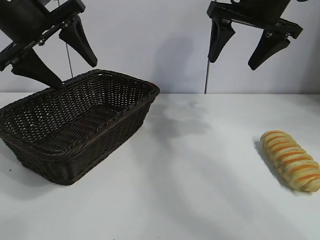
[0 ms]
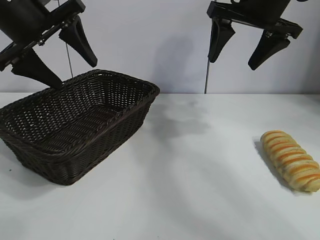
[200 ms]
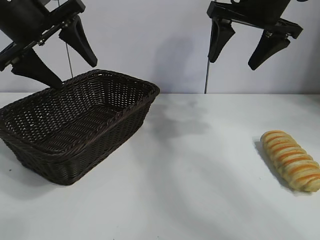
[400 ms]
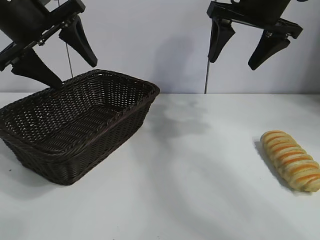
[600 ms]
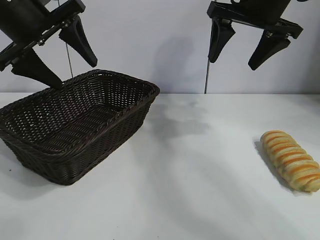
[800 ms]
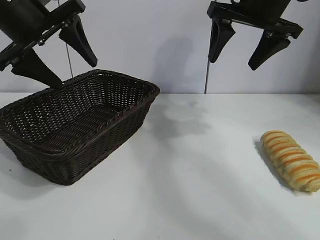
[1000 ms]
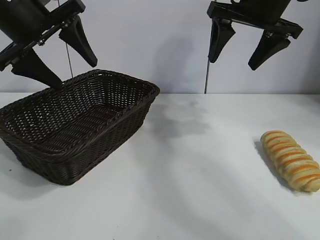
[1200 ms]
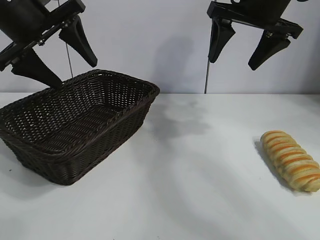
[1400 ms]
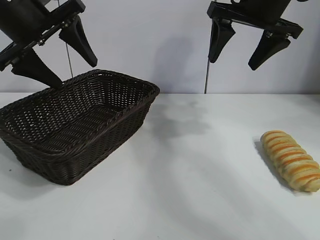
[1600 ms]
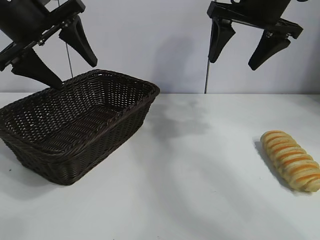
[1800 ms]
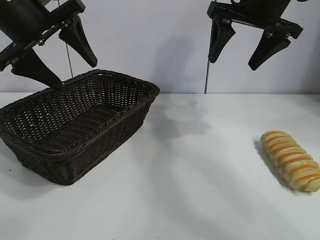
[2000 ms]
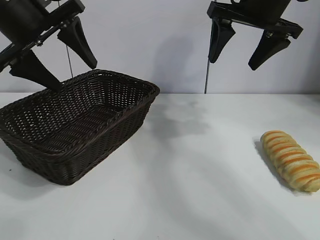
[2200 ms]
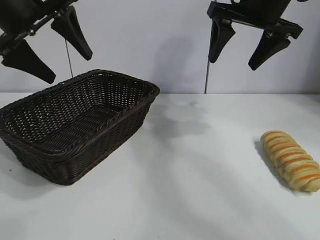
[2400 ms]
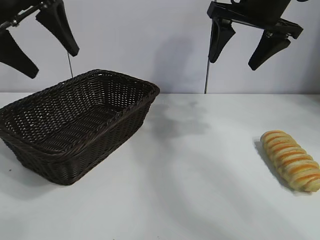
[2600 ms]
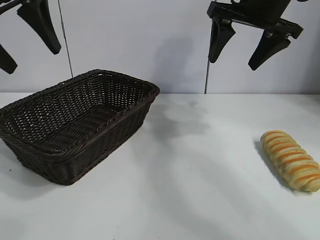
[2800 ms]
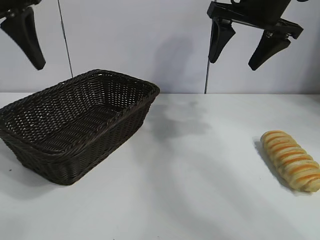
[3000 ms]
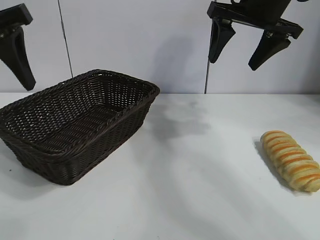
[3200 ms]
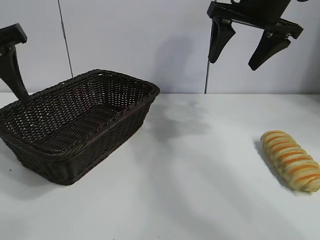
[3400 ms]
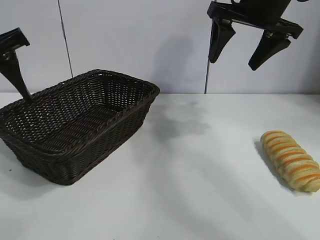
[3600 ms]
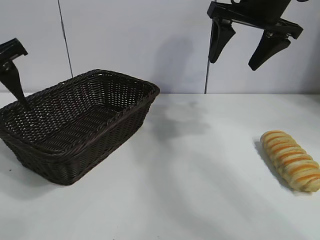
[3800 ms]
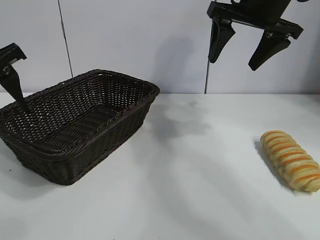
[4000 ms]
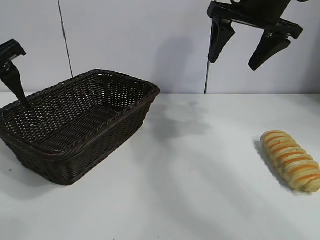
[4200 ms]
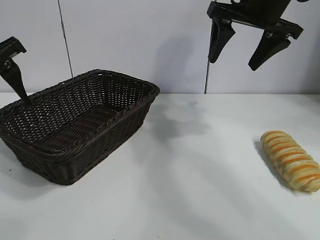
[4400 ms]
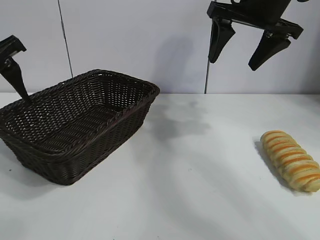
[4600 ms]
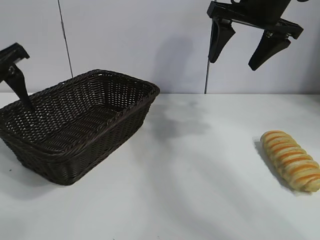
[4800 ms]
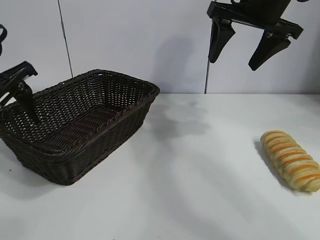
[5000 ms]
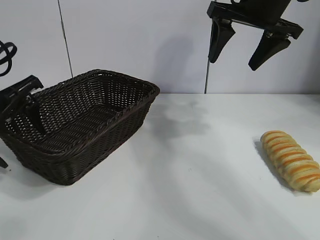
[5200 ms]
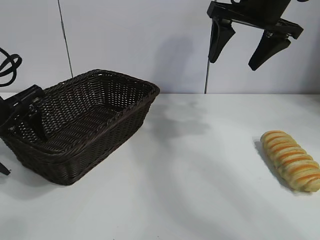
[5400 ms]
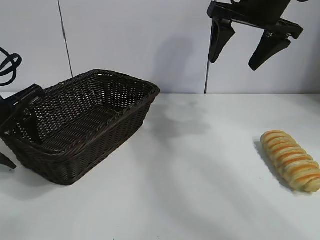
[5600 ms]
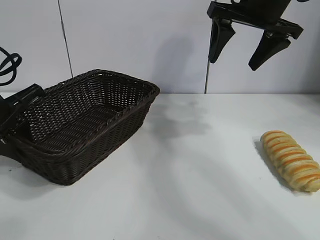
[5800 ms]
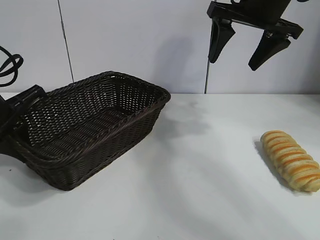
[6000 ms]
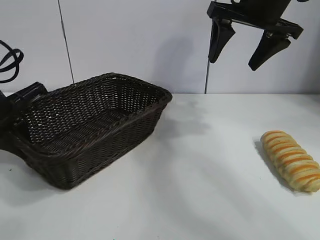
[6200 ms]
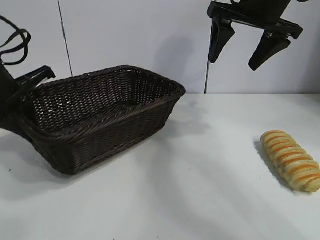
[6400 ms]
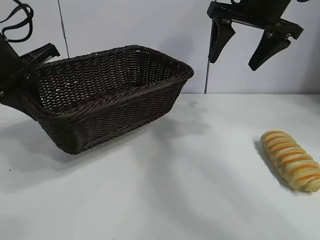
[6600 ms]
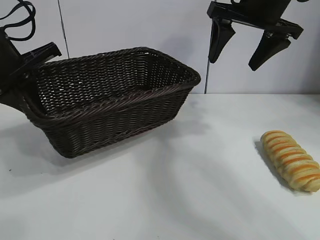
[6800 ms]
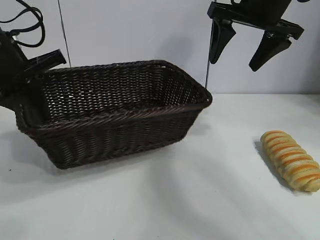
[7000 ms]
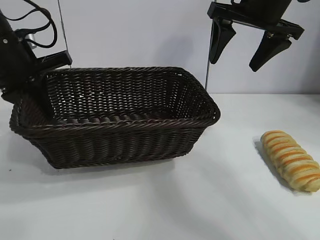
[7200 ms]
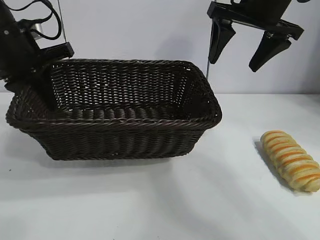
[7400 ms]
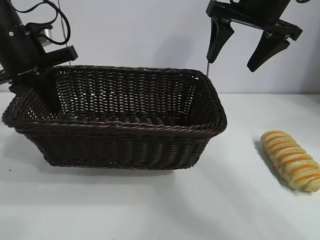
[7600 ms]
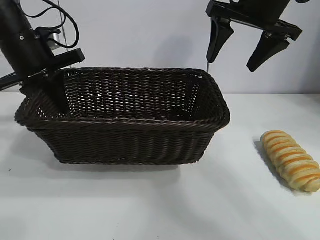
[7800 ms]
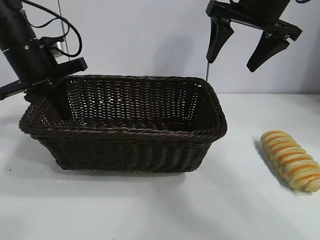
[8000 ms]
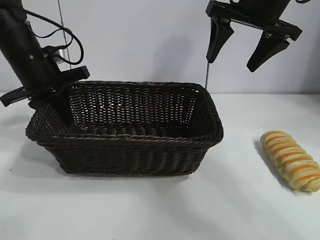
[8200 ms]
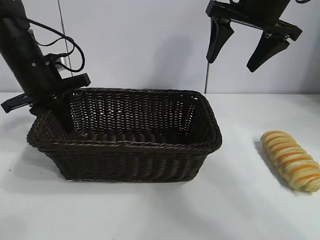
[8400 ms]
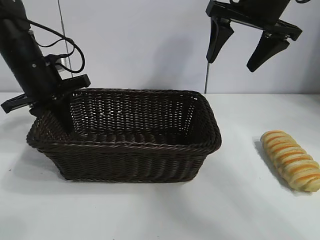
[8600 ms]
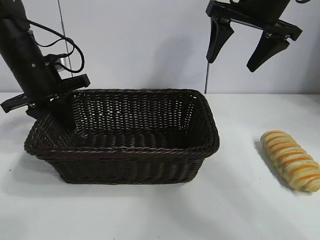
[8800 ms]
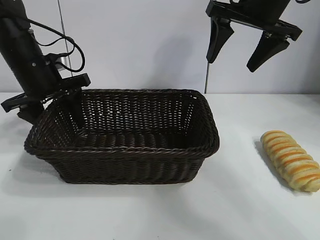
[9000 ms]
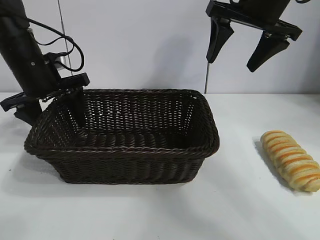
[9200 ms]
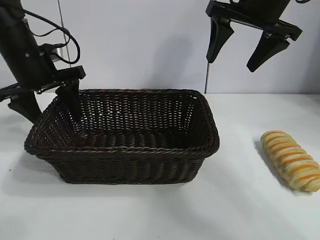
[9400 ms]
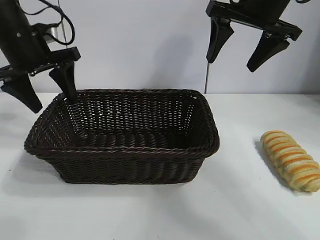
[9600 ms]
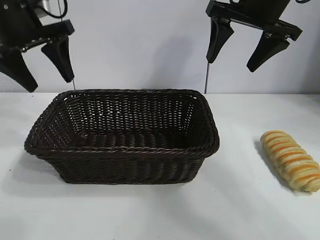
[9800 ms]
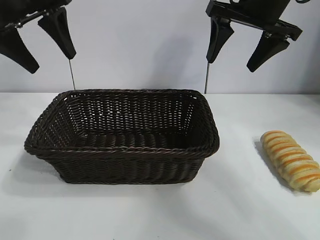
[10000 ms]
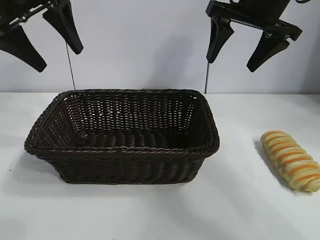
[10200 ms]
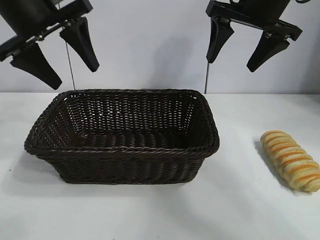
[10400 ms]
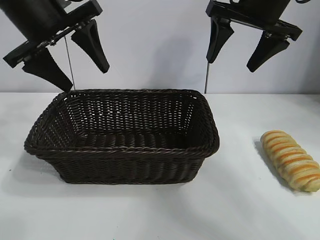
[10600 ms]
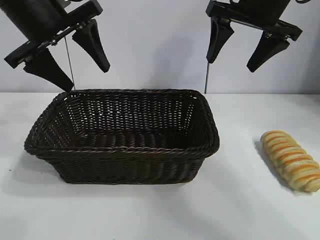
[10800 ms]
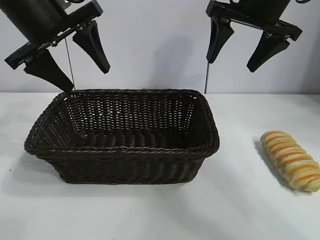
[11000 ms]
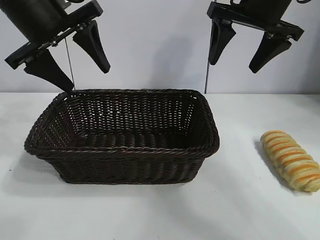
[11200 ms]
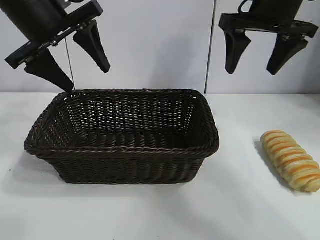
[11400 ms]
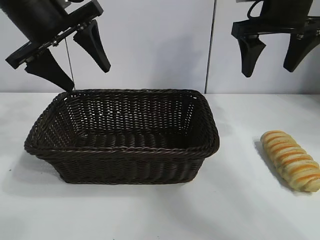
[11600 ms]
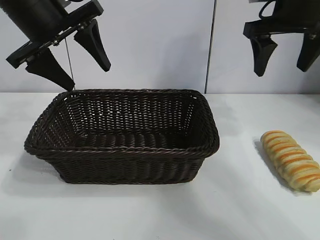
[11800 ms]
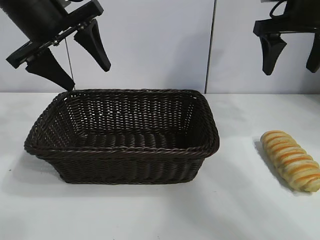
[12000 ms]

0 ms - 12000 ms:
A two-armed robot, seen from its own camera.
Task of the whole recording: pick up the long bread and put it into the basket.
Step, 2200 ms - 6000 ms: Grasp the basket with the left gripper.
Step, 6200 ms - 9000 ms: Place the basket in the center of the table with the left gripper.

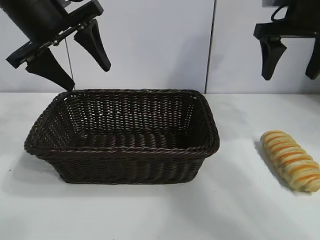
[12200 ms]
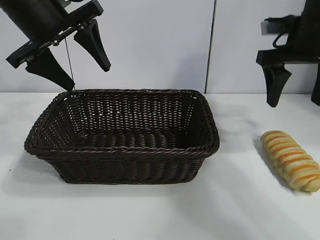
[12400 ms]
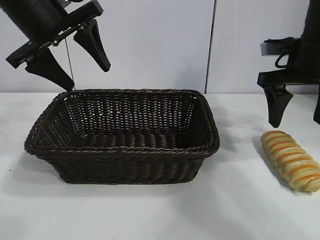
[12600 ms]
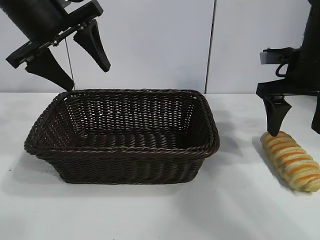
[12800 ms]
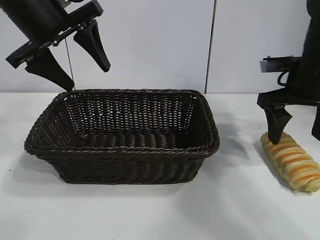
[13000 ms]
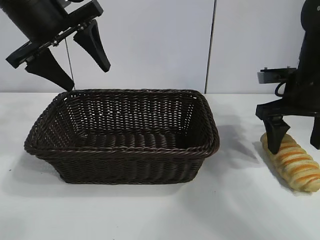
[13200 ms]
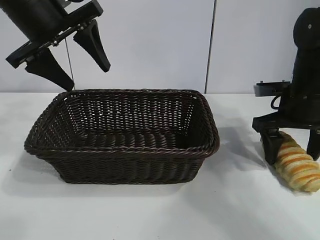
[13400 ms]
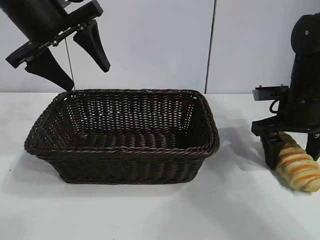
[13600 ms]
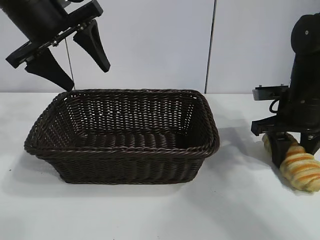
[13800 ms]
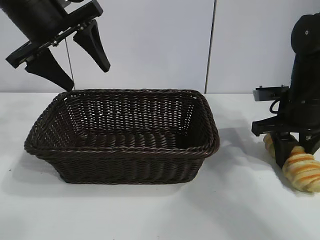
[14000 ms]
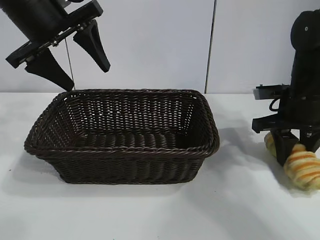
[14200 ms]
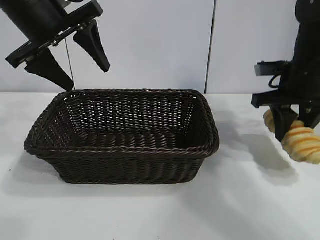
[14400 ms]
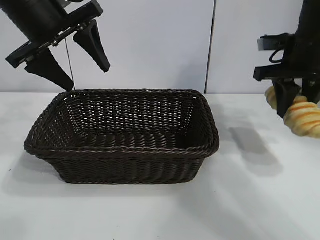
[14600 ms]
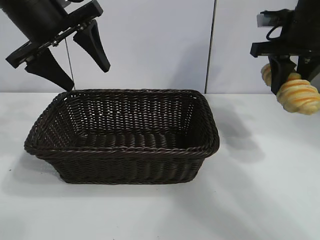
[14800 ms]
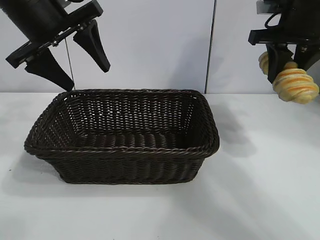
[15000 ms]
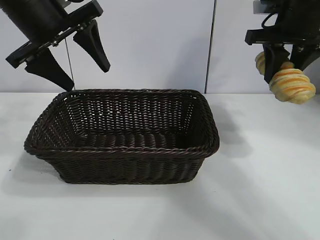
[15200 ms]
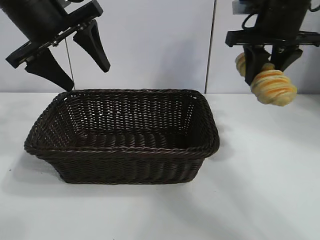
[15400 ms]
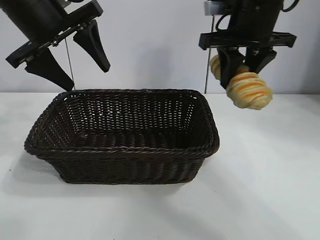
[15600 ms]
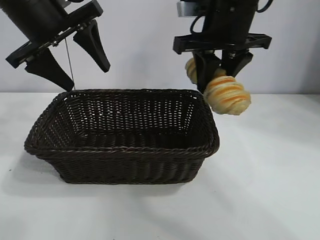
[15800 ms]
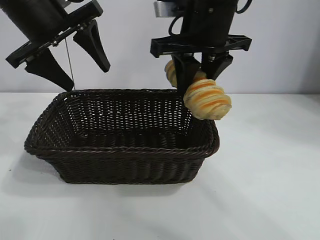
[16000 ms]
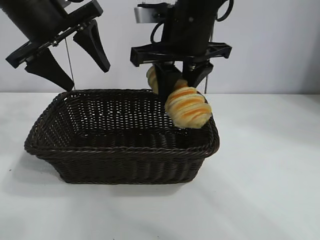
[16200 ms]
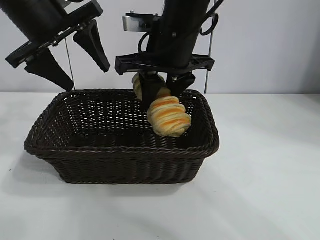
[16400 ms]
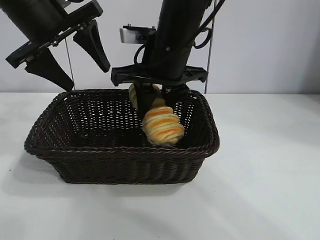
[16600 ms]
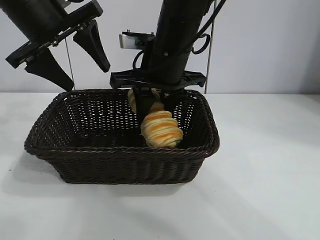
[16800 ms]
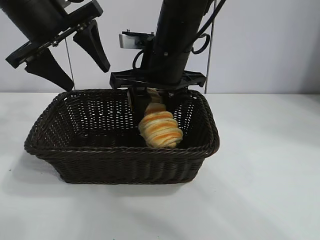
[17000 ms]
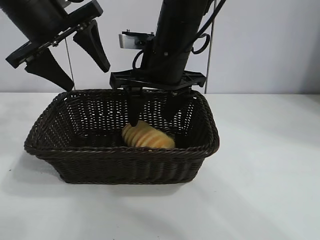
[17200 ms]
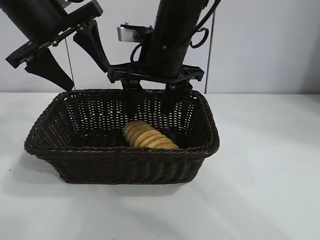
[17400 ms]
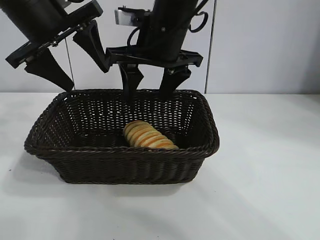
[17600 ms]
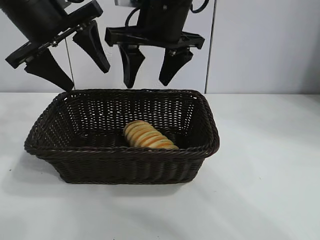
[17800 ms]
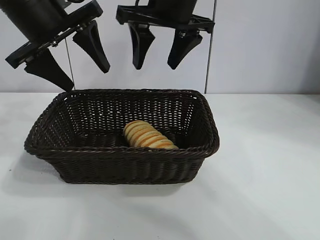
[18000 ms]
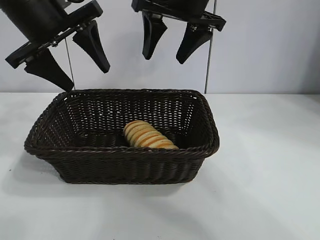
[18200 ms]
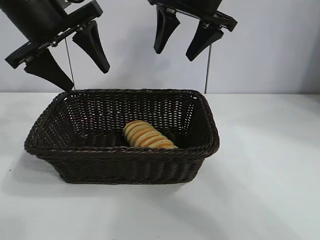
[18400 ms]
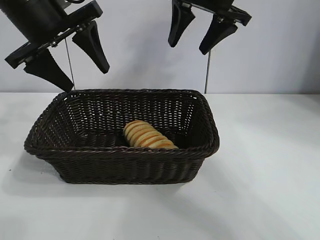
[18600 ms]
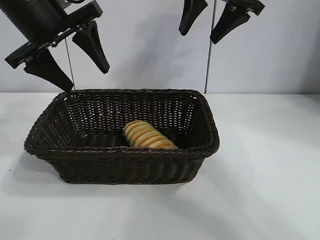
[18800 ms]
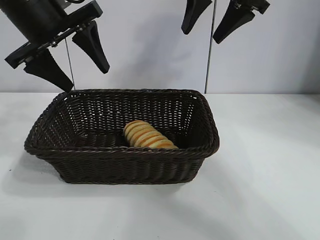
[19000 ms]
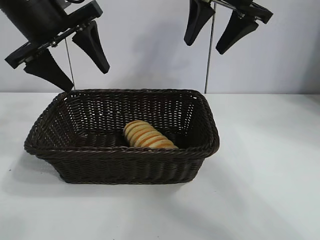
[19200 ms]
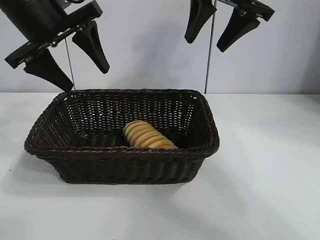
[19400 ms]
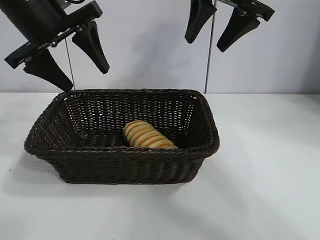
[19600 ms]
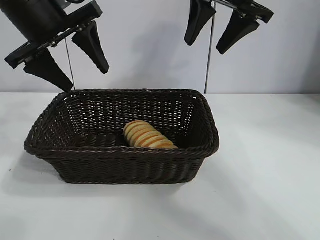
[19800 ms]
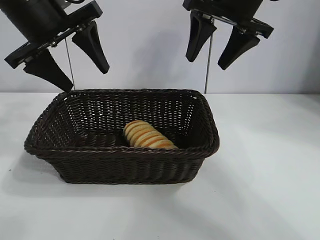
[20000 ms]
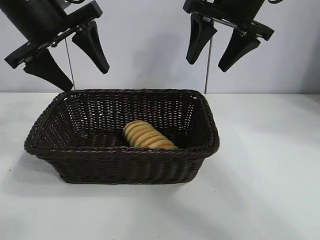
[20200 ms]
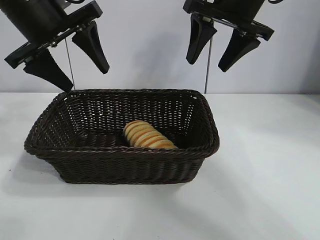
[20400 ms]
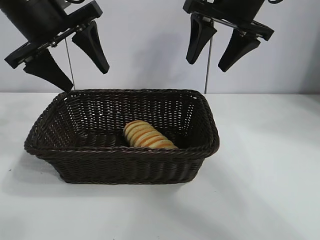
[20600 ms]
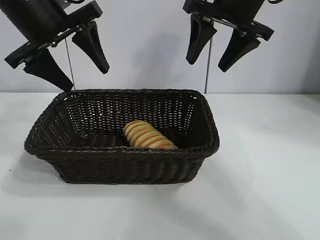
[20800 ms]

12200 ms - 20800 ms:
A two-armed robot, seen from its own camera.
Task of the whole recording: pick up the long bread and put it into the basket.
Step, 14200 ms - 17600 ms: Place the long bread in the basket with right gripper.

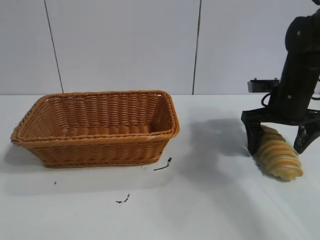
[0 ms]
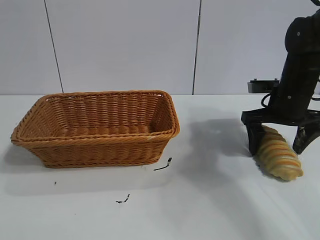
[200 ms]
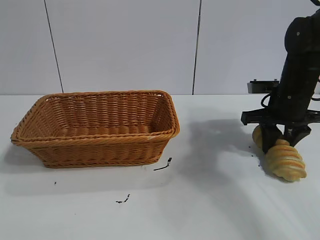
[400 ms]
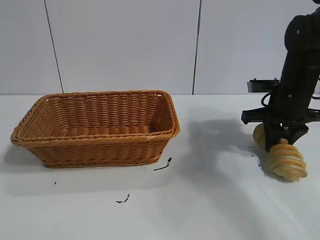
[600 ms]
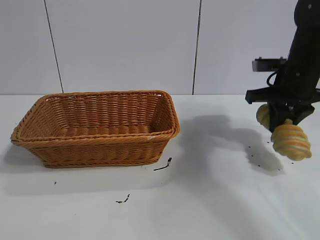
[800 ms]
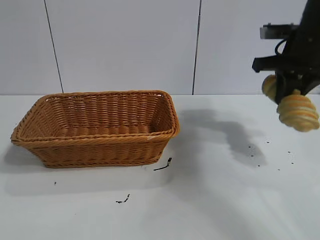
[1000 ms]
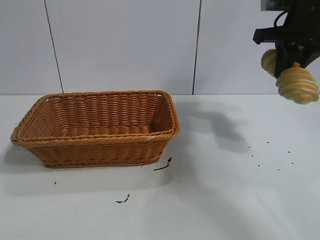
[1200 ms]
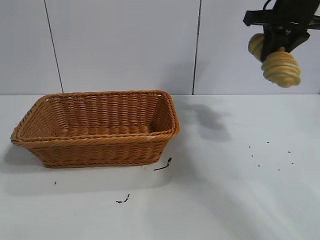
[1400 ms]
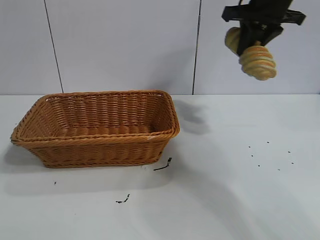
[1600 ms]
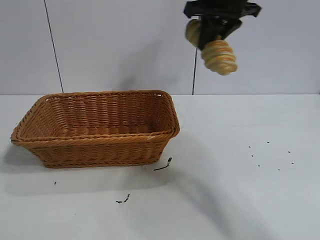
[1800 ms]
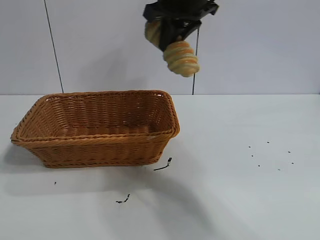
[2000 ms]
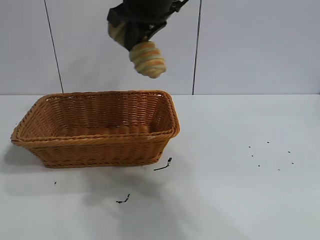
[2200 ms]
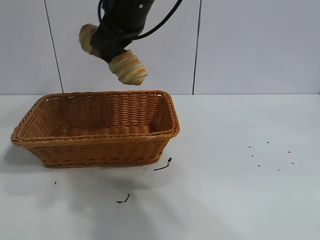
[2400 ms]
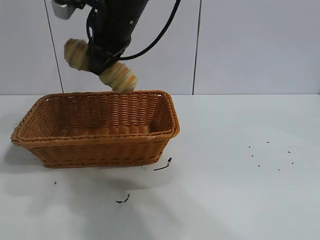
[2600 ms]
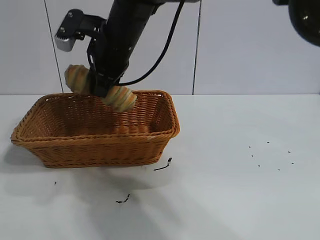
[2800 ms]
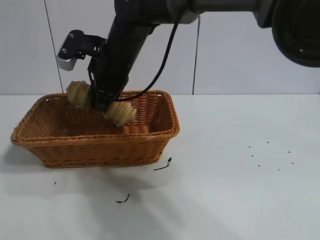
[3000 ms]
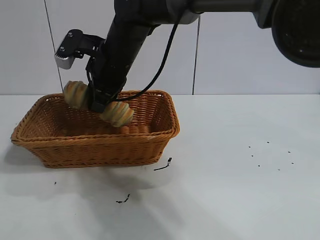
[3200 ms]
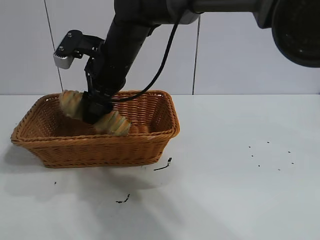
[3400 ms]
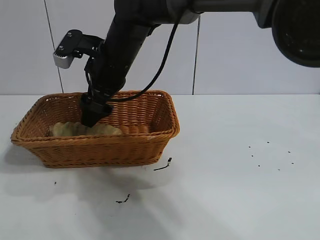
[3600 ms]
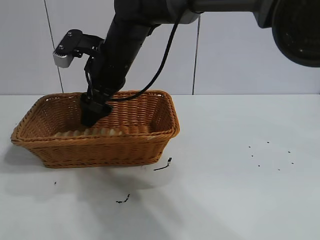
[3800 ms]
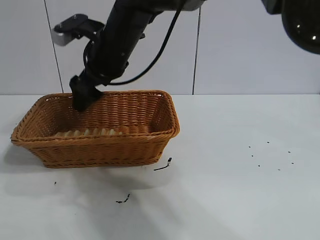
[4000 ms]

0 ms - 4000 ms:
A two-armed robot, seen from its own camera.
Task of the whole recording: pick up the long bread and put it into the basket.
Step, 800 ms - 4000 ms: Place the long bread in the basket with right gripper.
